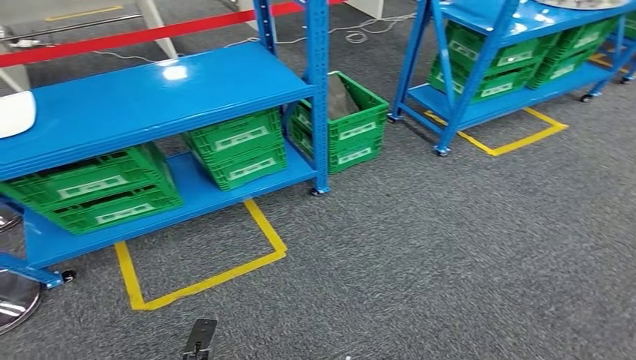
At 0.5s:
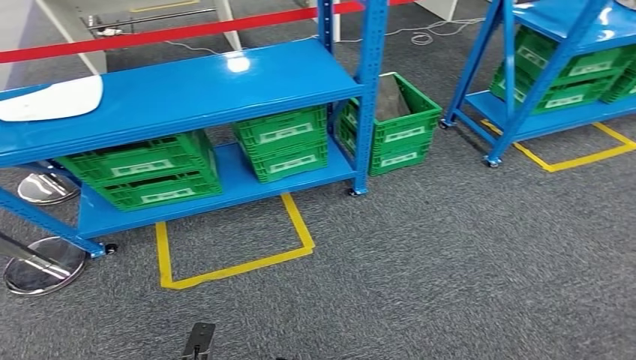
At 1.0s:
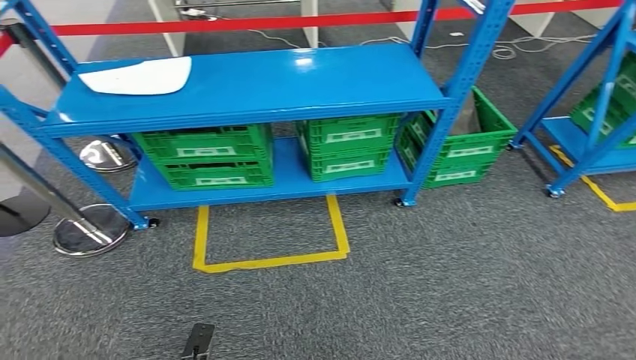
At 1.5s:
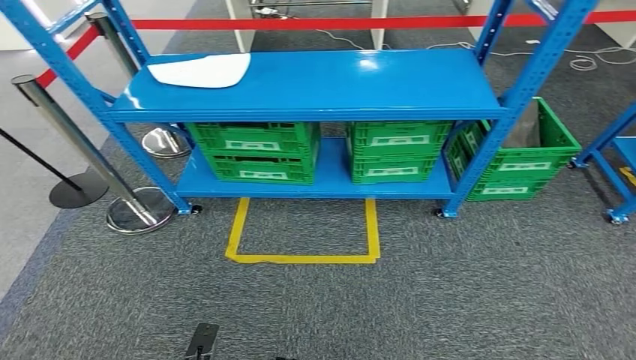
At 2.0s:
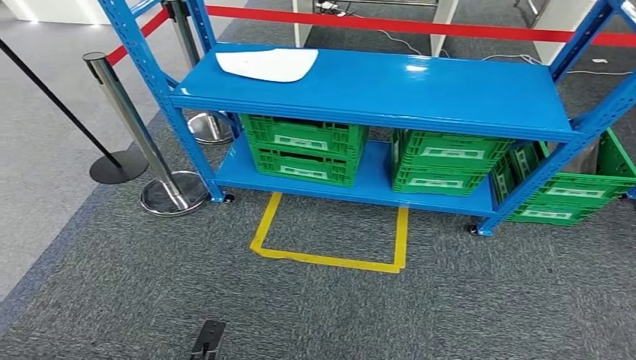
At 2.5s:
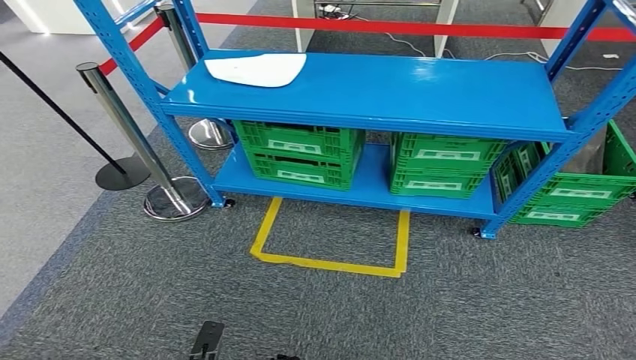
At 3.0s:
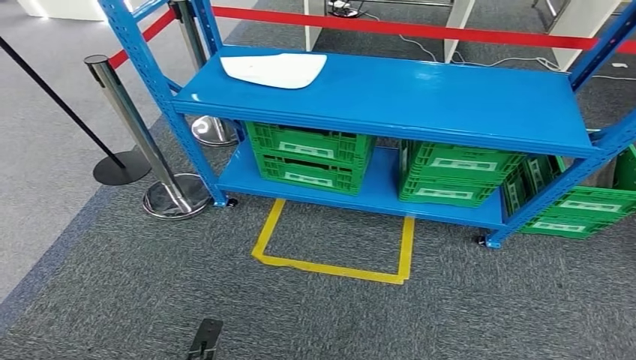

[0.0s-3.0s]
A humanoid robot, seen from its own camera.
Step, 0.0s to 3.0s: Move to the initial position of the workbench.
